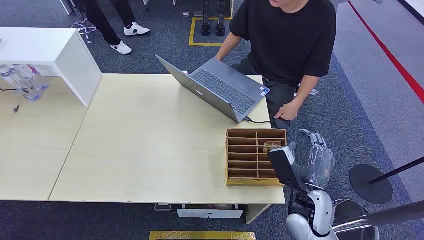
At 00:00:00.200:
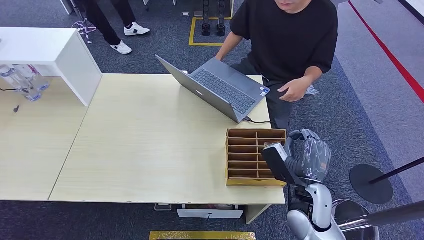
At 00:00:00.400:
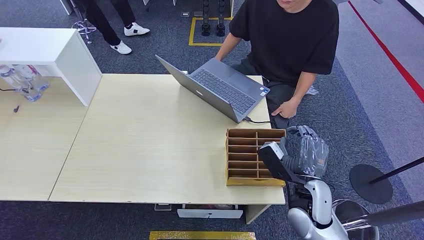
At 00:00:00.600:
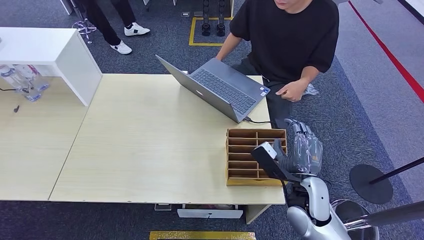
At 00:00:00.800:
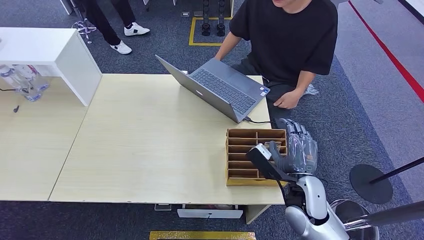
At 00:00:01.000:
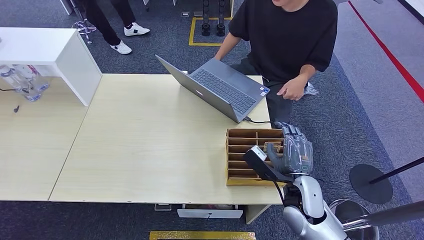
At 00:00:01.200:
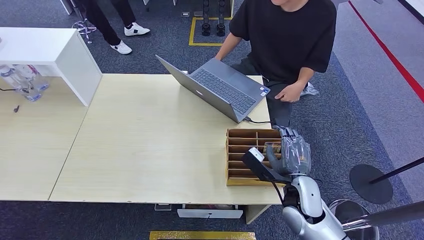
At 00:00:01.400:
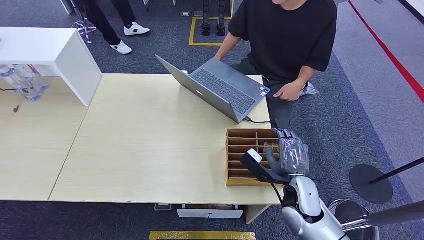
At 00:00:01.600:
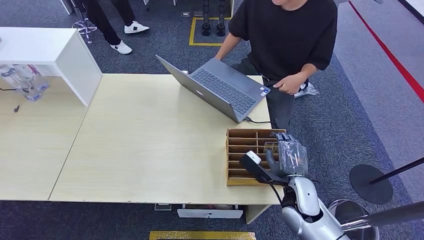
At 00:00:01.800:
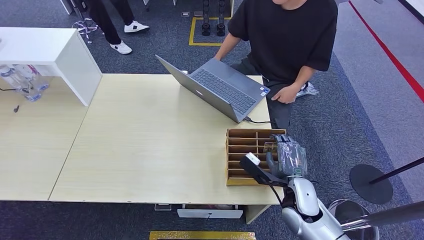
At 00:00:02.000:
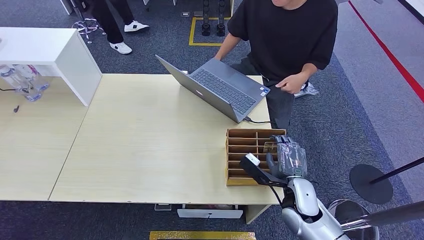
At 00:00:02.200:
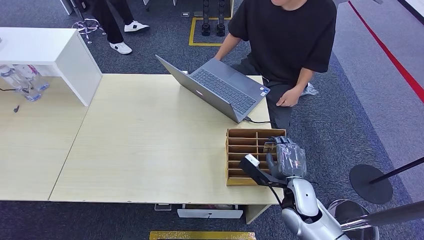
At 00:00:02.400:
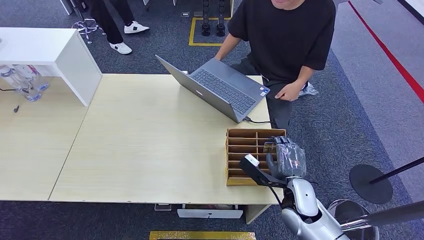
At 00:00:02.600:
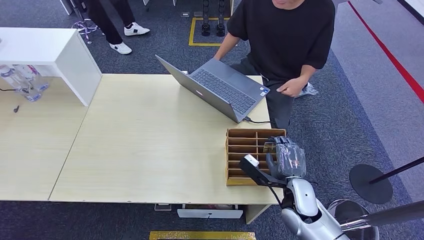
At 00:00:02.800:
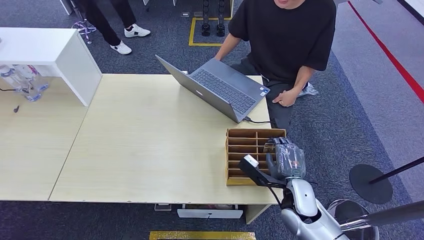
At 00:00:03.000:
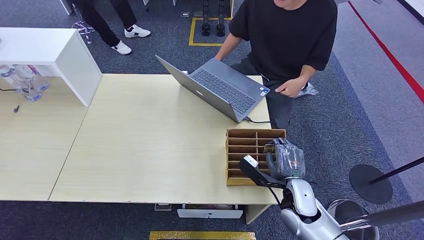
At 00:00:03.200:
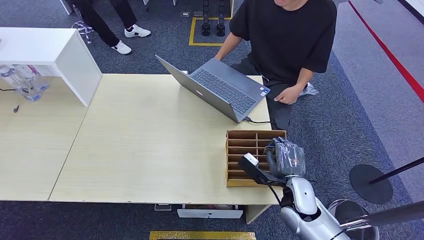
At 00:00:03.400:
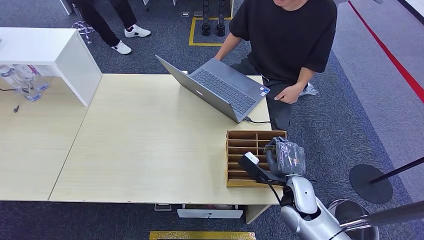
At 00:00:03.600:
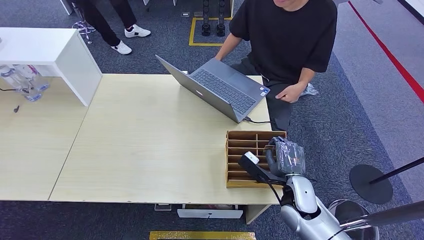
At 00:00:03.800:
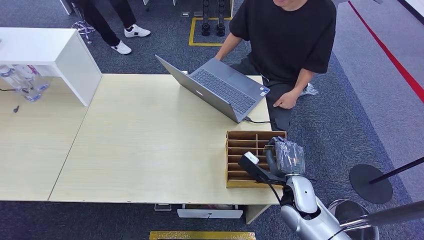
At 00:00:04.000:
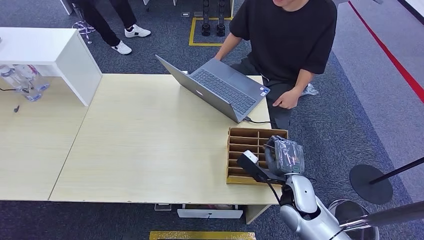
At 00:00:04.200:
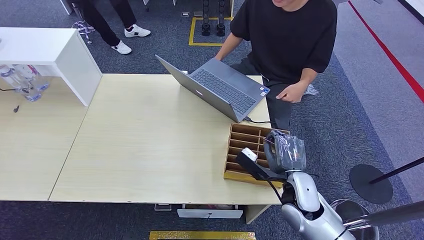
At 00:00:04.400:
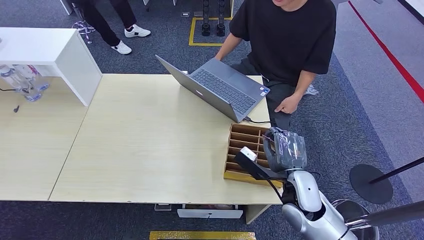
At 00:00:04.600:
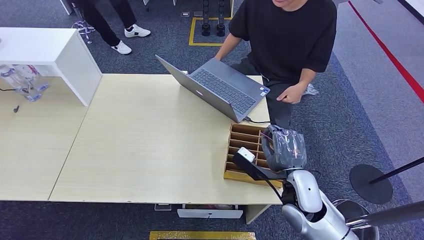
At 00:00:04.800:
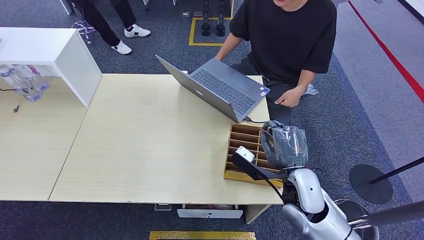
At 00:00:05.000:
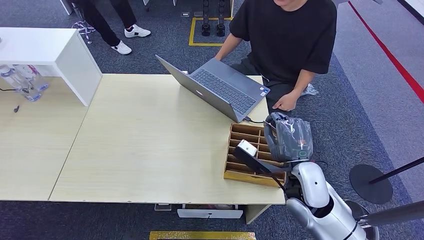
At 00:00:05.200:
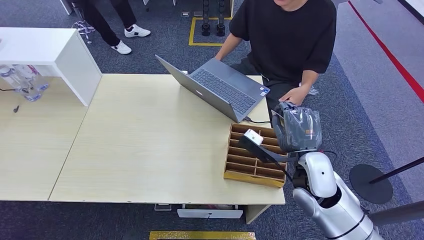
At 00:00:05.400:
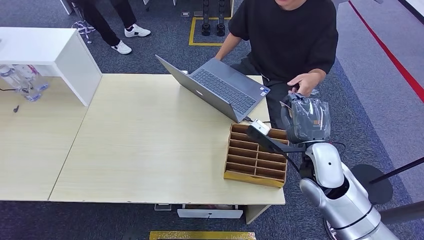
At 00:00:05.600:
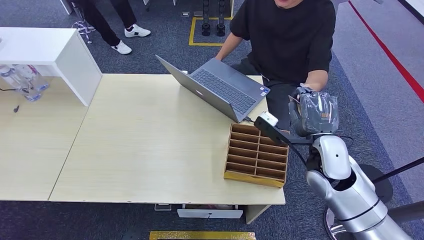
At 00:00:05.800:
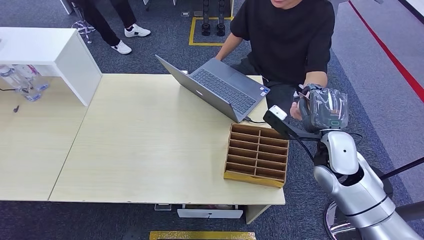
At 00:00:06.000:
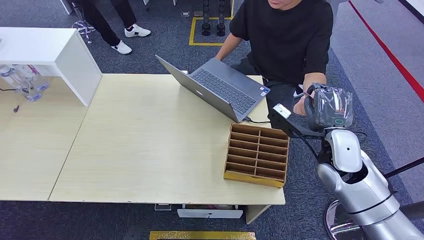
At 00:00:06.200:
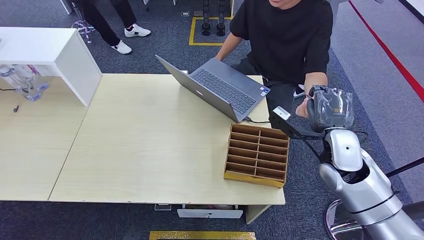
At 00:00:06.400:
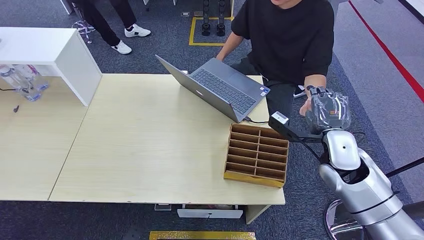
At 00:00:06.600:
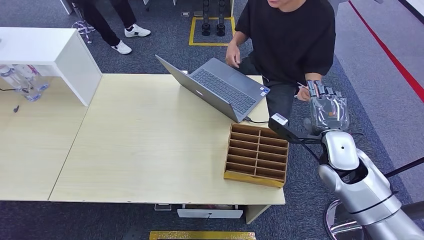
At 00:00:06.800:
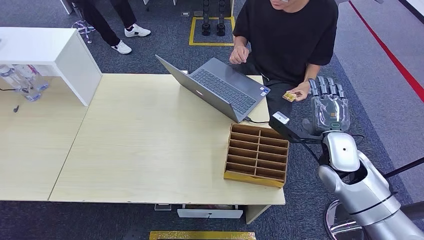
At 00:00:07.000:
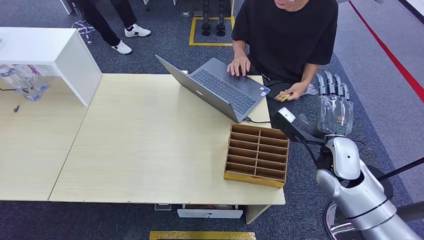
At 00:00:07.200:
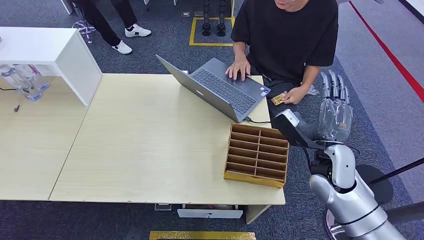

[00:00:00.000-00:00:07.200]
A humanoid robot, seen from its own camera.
Step, 00:00:00.000 to 00:00:05.000: Pick up the room card from the card holder.
Step, 00:00:05.200 to 00:00:07.200: Hand the room card to the target.
00:00:01.400 to 00:00:02.800: The hands make only small movements.
00:00:02.800 to 00:00:04.400: The right hand changes place by roughly 5 cm.
00:00:04.400 to 00:00:05.800: The right hand goes some 10 cm upward, to the right and forward.
00:00:05.800 to 00:00:07.200: The hands move only a little.

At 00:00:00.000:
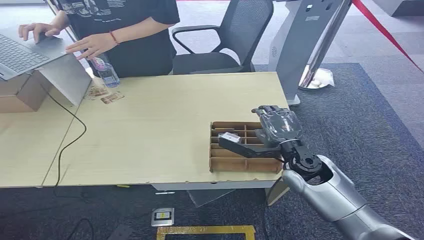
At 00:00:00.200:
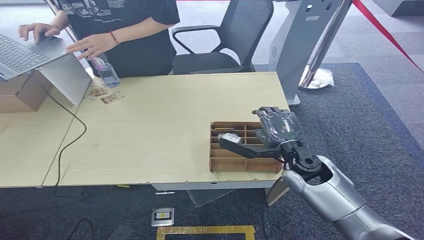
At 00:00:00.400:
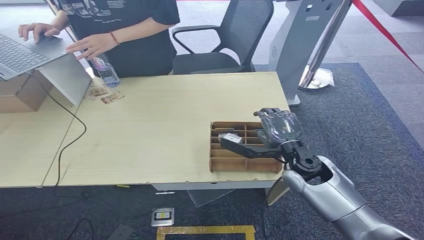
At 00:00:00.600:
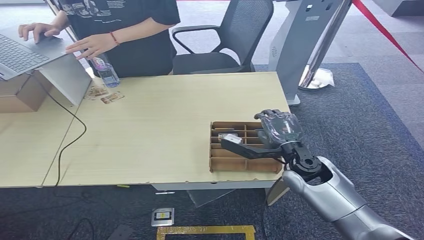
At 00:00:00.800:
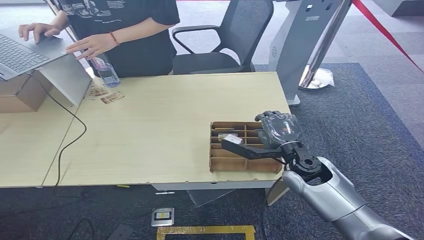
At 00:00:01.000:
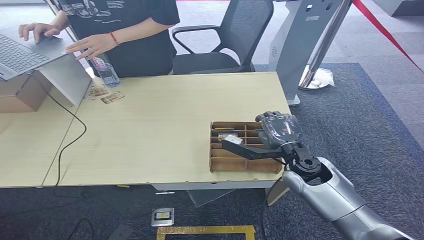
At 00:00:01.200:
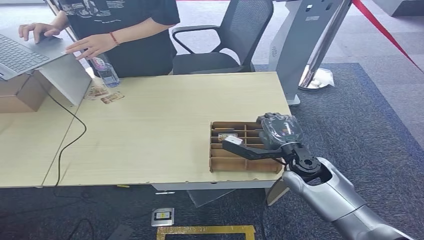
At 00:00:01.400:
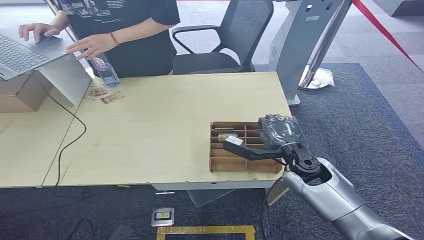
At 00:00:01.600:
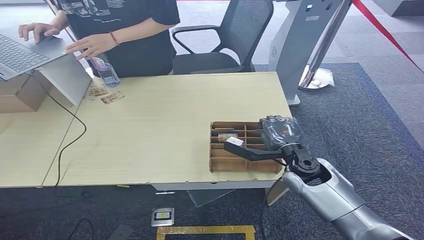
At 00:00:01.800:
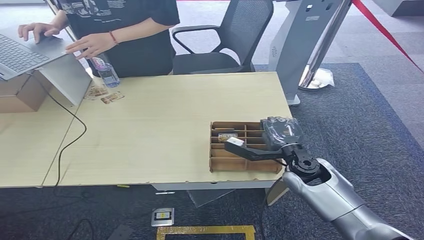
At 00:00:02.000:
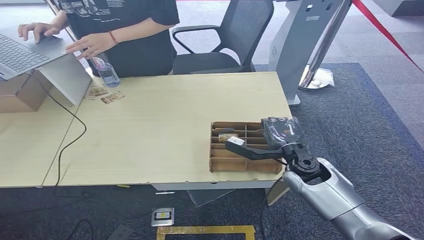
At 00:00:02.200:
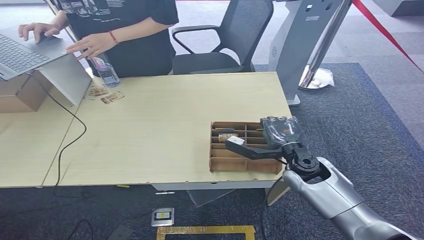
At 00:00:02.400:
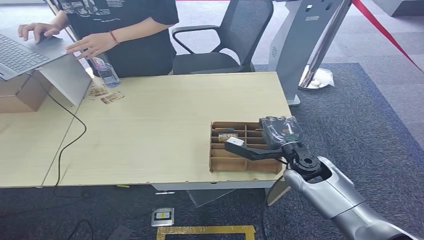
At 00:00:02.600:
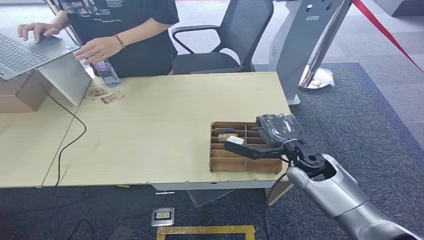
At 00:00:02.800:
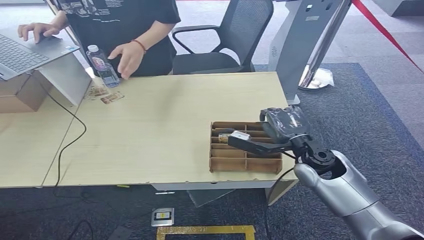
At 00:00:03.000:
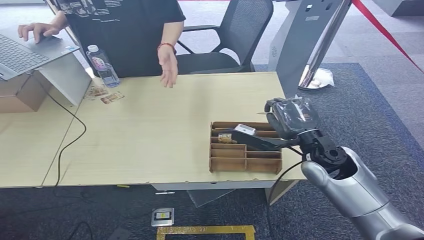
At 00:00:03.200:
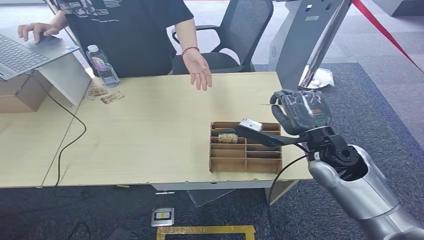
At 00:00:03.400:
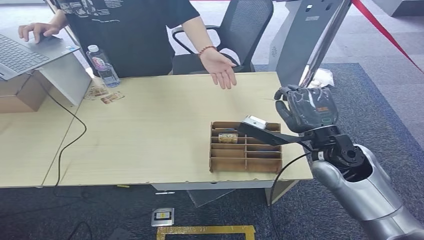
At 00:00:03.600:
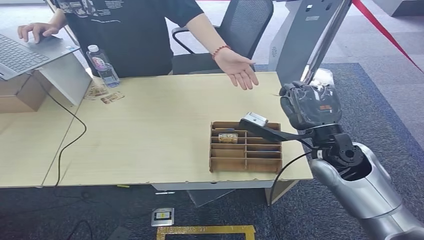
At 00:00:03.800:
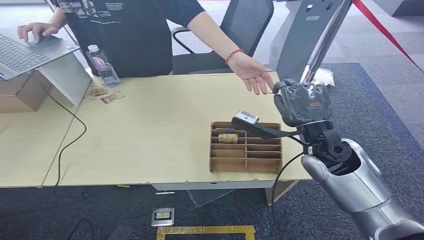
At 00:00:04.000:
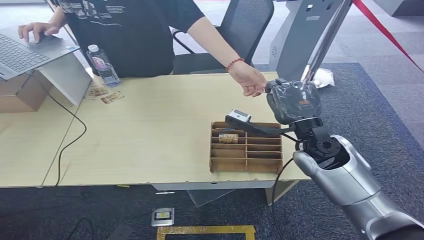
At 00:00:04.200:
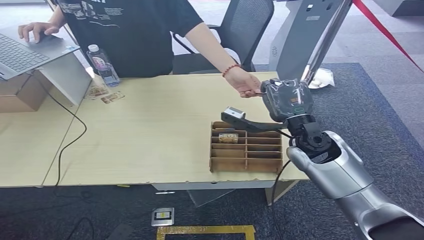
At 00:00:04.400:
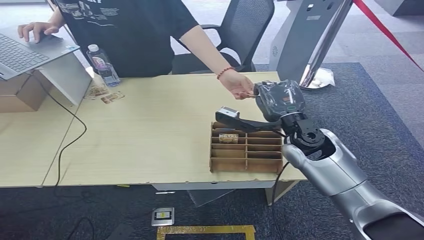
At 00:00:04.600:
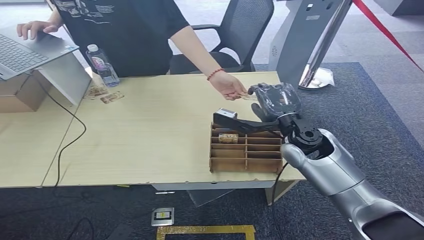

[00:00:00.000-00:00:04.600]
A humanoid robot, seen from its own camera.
Step, 00:00:00.000 to 00:00:02.800: Pick up the room card from the card holder.
Step, 00:00:03.000 to 00:00:04.600: Hand the room card to the target.
00:00:01.600 to 00:00:03.000: The right hand is displaced upward by some 5 cm.
00:00:03.000 to 00:00:04.600: The right hand moves roughly 5 cm.
